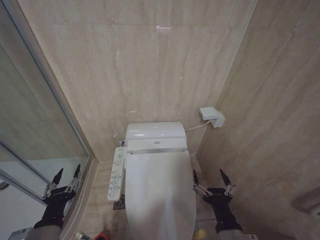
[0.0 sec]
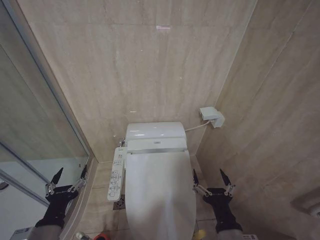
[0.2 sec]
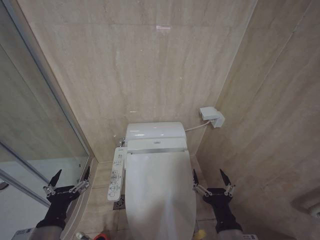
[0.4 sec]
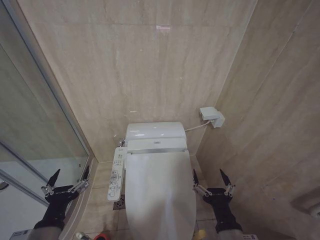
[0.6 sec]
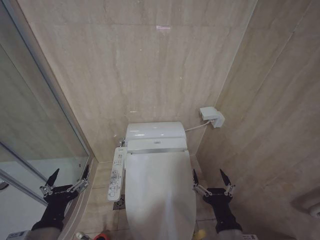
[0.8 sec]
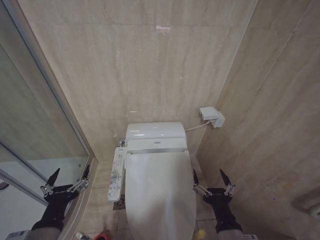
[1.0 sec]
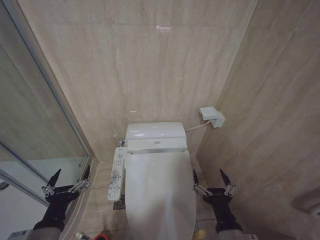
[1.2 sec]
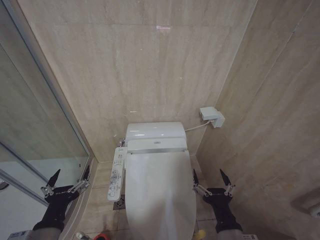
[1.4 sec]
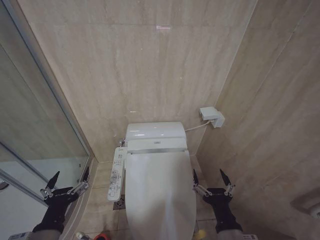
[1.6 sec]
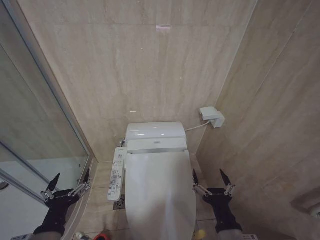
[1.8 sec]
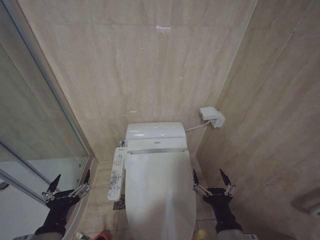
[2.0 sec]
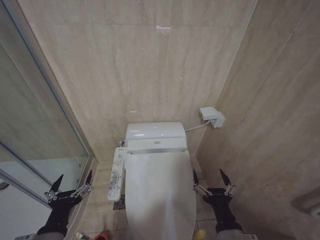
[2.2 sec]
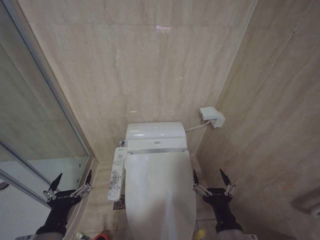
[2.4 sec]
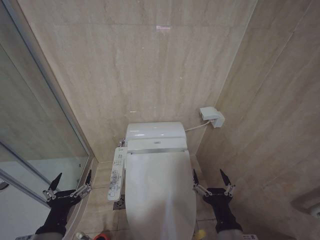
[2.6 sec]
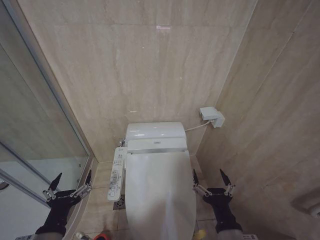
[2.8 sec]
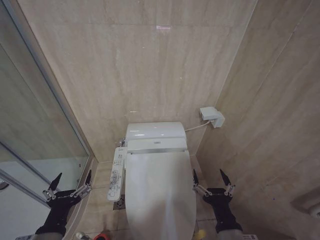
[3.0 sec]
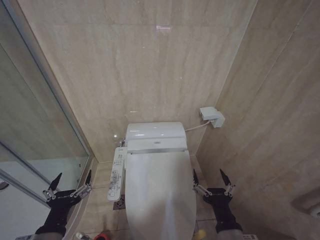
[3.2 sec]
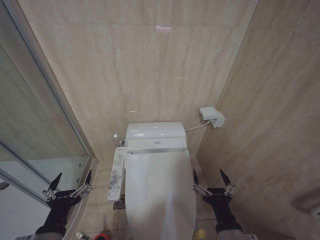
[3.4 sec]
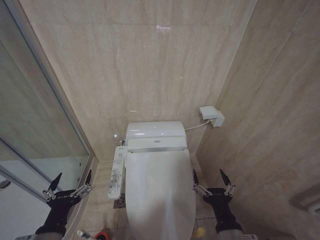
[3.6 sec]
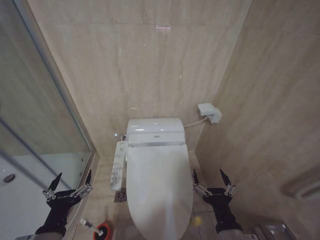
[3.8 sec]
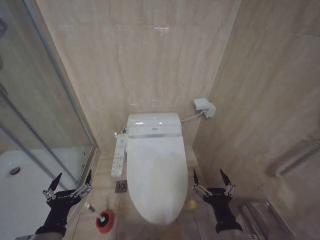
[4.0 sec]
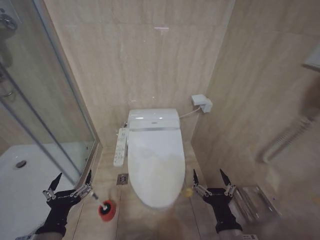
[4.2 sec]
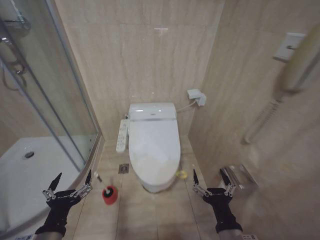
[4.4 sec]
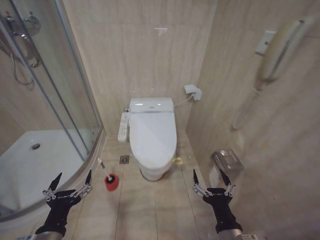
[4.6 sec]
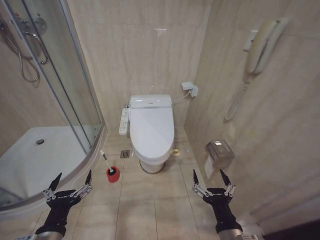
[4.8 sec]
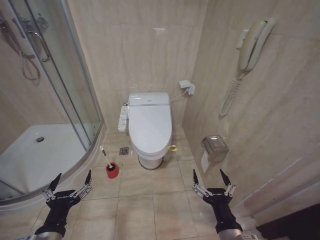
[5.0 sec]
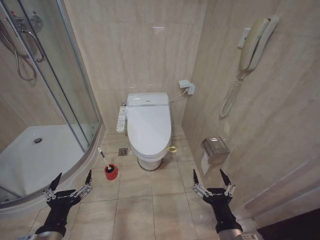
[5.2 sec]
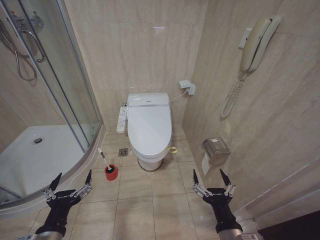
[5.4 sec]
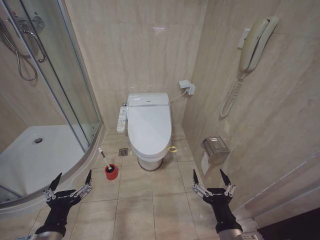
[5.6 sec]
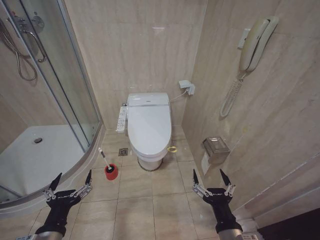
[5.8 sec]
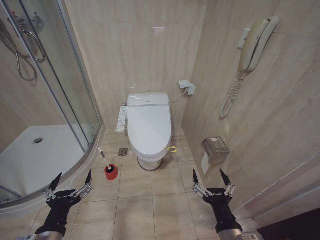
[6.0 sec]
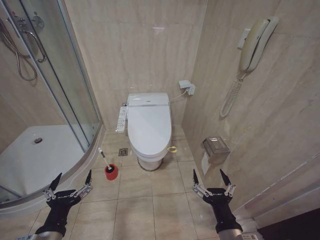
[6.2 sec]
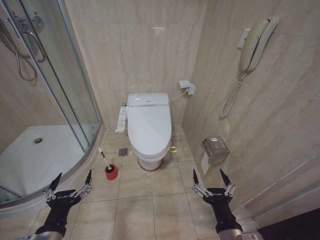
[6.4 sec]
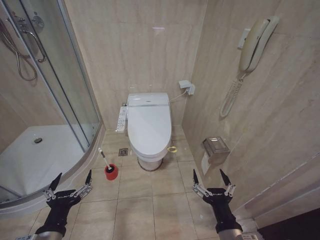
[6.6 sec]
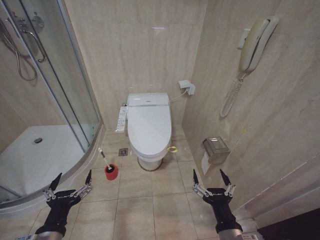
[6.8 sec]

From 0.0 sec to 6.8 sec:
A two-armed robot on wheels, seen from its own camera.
Task of the whole recording: Open the toilet lid, clean the toilet bowl with a toilet brush, close the toilet lid, and flush.
From 0.0 sec to 1.4 sec: The left gripper opens up.
From 1.4 sec to 4.0 sec: Both grippers stay about where they are.
From 5.4 sec to 6.8 sec: Both grippers stay put.
